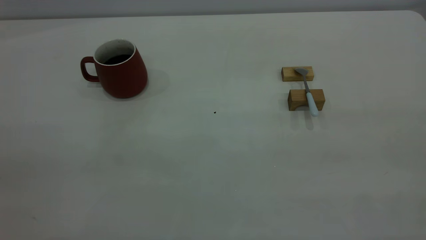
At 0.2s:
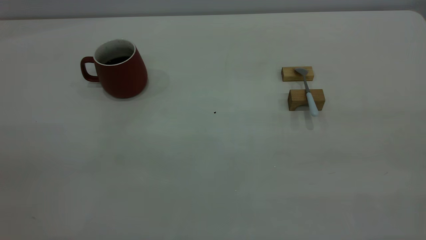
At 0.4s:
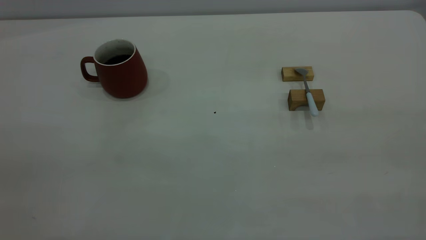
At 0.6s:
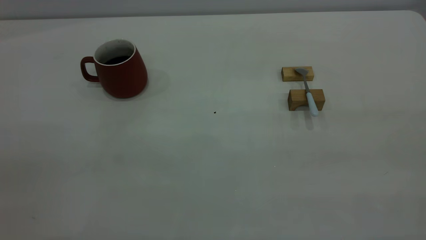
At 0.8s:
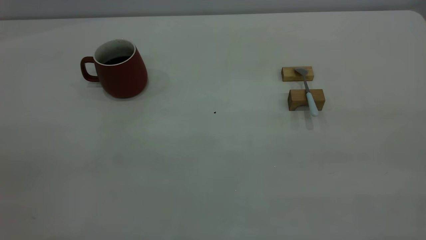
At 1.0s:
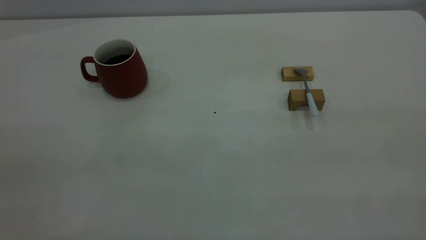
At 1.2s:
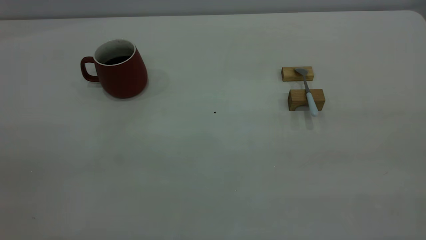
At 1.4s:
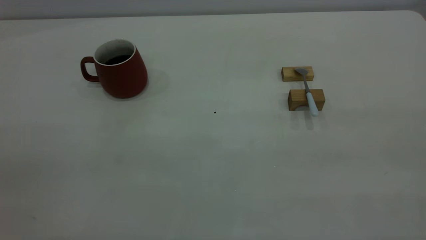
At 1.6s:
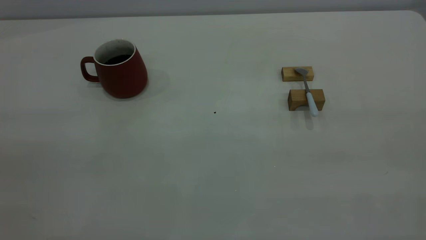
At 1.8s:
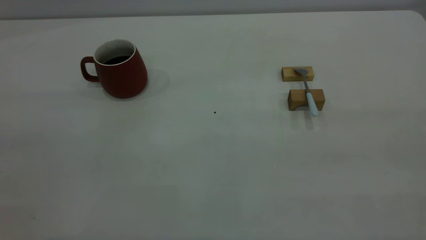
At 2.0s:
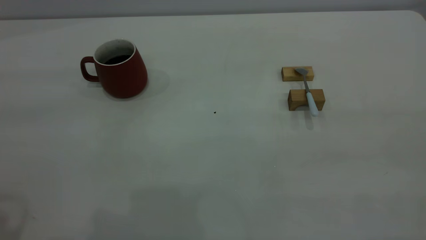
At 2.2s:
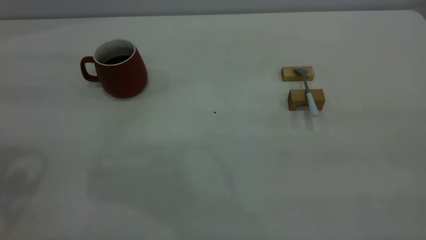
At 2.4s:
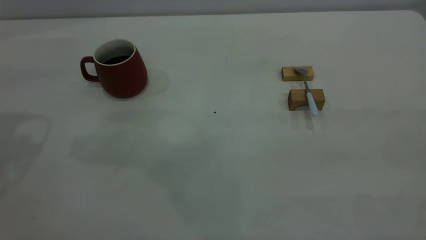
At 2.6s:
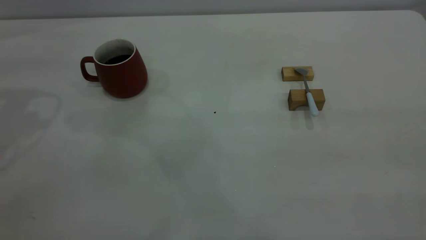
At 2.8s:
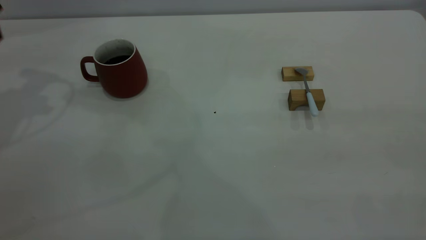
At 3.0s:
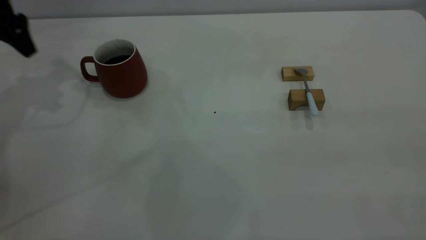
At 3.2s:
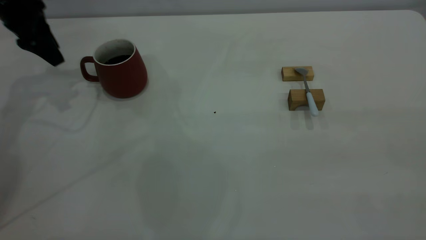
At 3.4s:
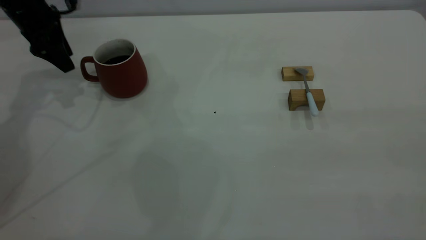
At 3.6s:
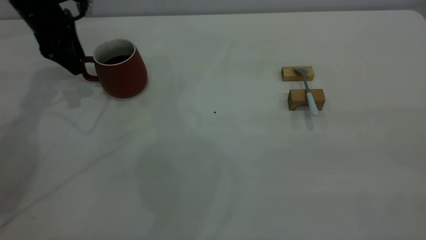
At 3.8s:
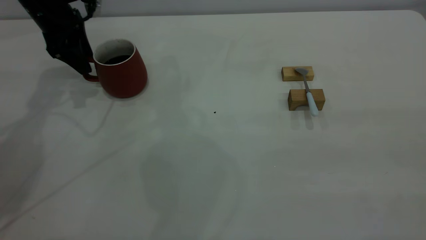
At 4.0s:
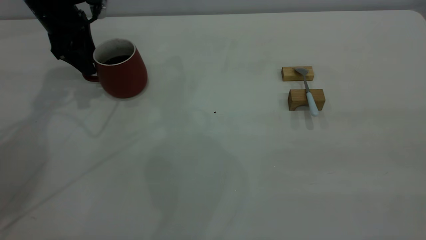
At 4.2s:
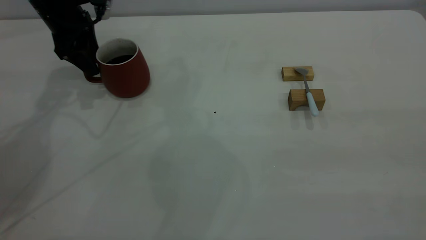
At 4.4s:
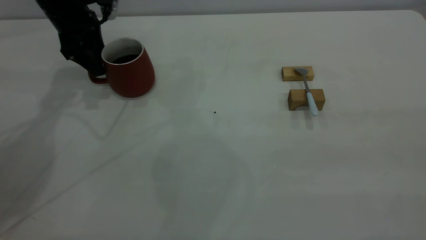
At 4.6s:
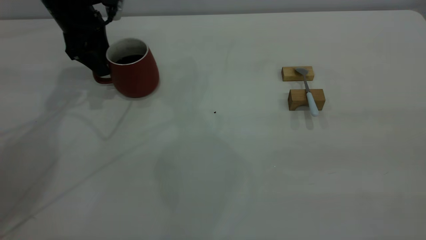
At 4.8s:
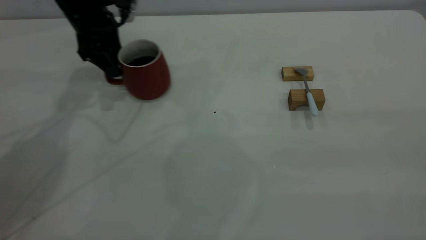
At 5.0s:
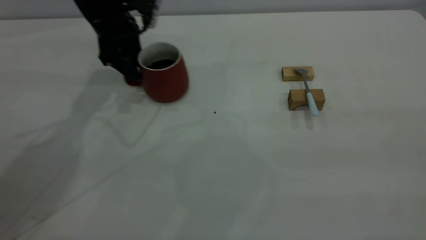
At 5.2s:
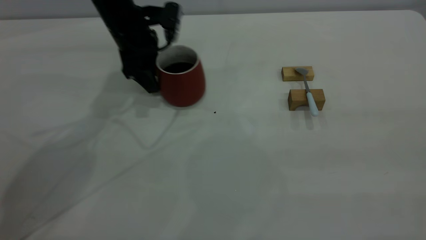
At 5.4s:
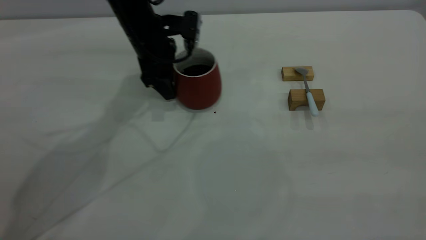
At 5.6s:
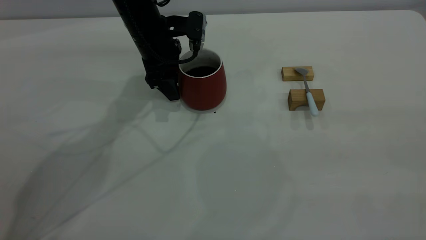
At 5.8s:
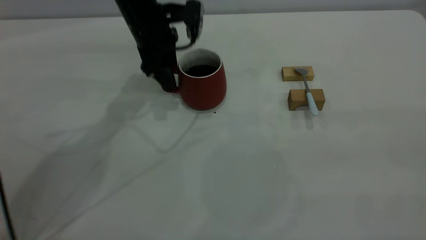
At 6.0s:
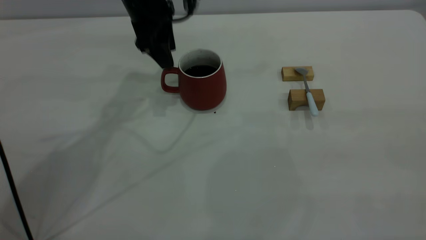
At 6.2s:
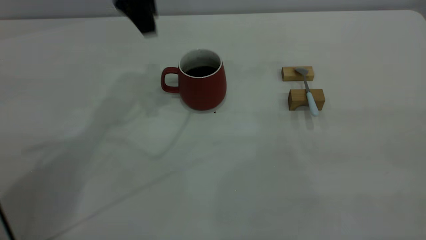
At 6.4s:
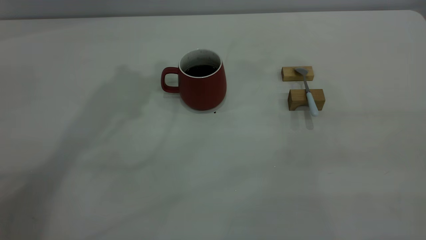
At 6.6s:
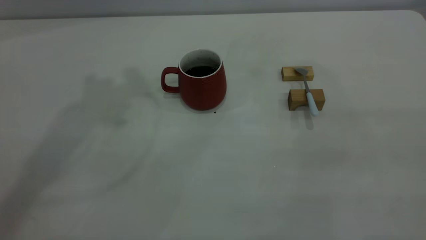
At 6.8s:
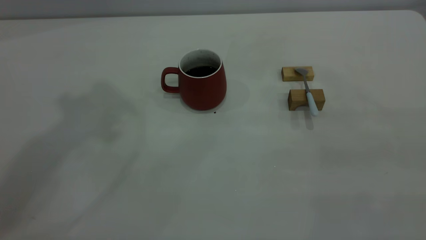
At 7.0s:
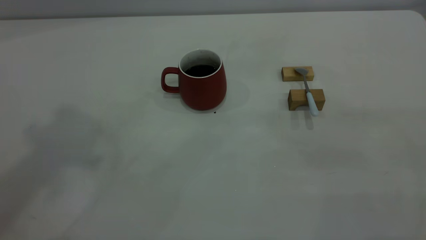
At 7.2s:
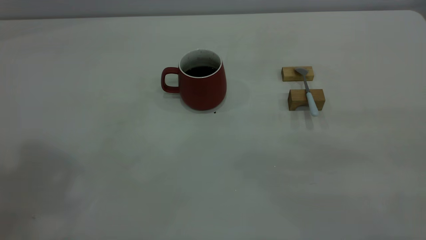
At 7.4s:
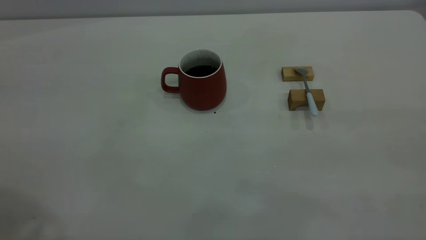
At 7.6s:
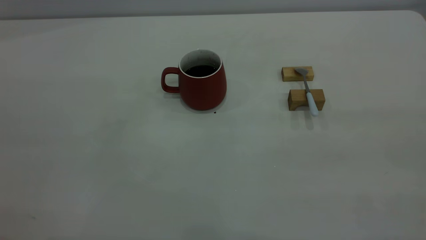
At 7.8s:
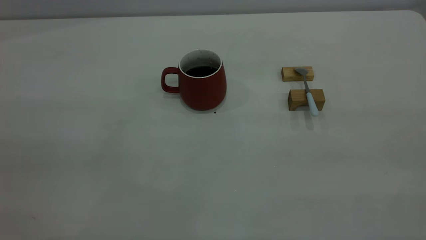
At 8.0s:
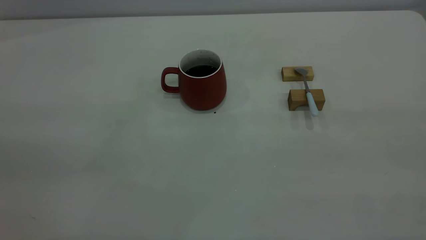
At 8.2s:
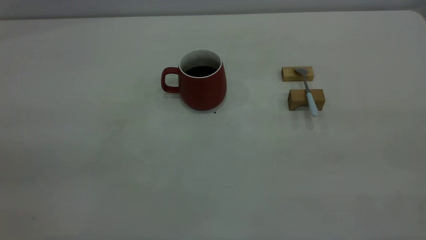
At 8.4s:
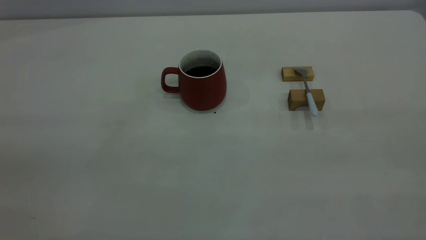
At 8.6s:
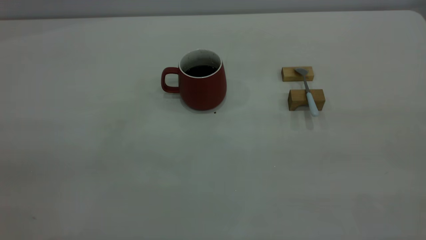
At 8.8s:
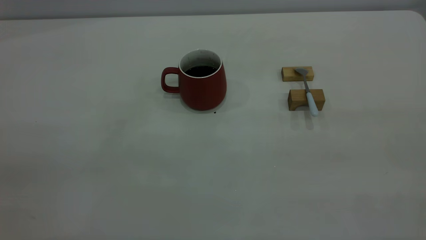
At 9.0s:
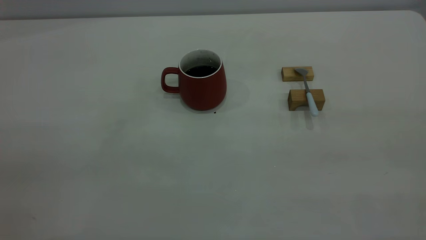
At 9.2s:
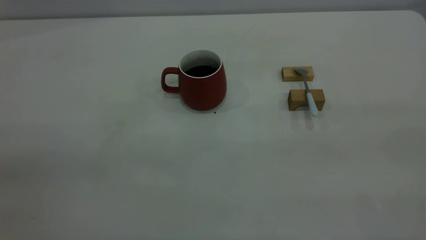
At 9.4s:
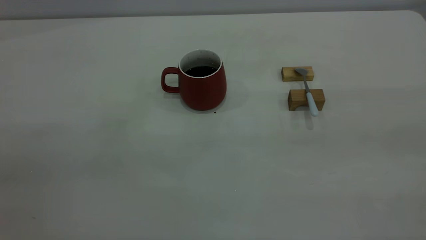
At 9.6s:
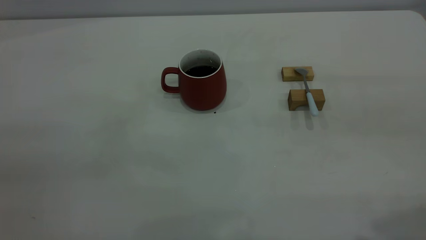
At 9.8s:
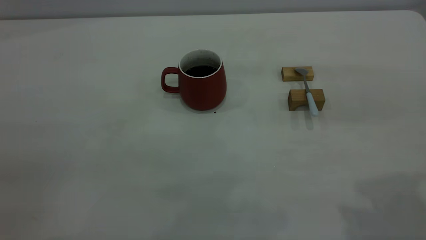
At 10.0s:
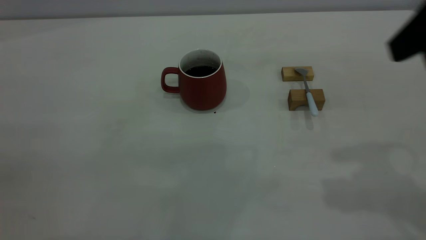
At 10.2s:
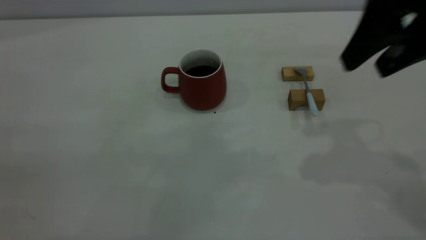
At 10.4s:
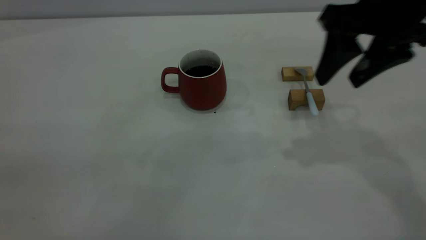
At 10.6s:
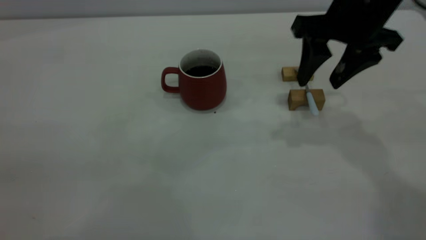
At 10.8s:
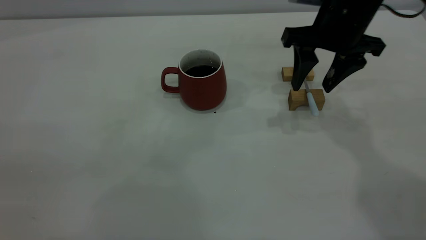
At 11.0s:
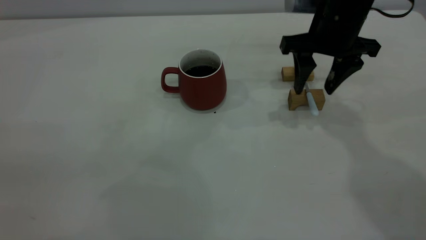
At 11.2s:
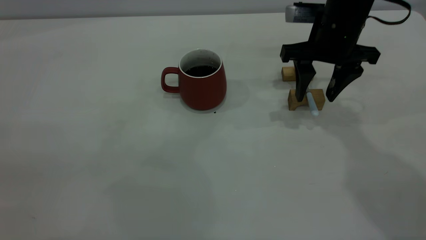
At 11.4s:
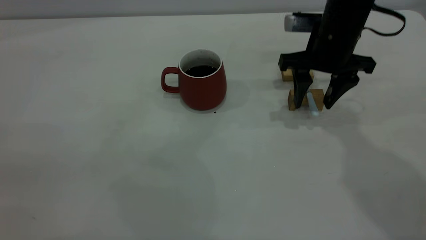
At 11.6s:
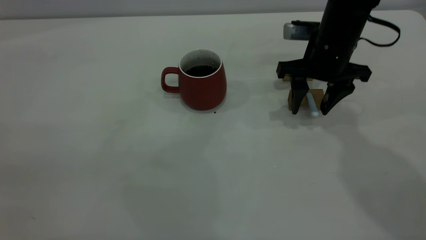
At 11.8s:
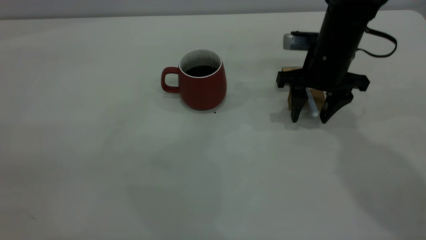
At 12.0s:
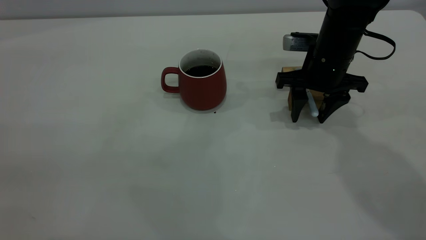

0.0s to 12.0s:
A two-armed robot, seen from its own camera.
Step, 0.0s to 5.8s: Move the cup with coffee to the center of view.
1.6s to 3.0s: The left gripper shifts approximately 50 cm forward and downward.
3.0s to 4.4s: The left gripper travels to the right and downward by roughly 10 cm.
4.4s to 6.0s: The left gripper shifts about 15 cm to the right.
6.0s to 7.6s: The left gripper goes approximately 50 cm backward, upward and to the left.
9.0s to 10.4s: The right gripper shifts some 35 cm forward and downward, and opens its fingers.
10.4s to 12.0s: The right gripper shifts about 15 cm downward and forward.

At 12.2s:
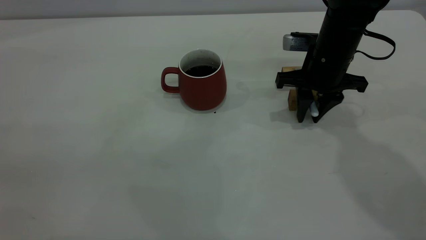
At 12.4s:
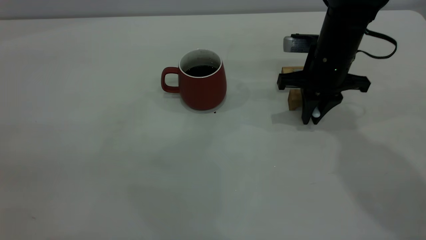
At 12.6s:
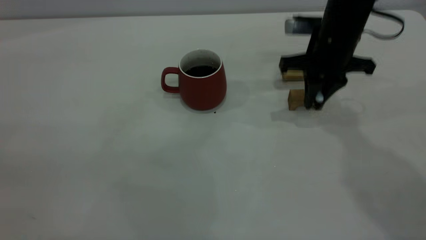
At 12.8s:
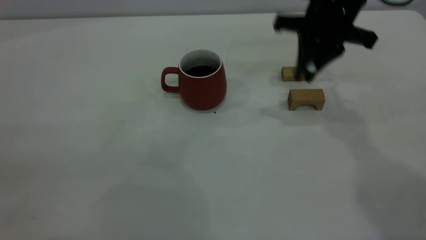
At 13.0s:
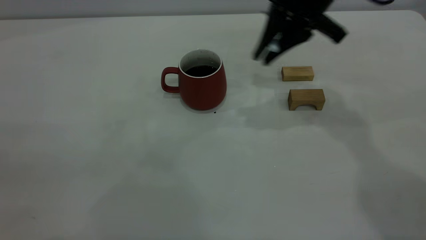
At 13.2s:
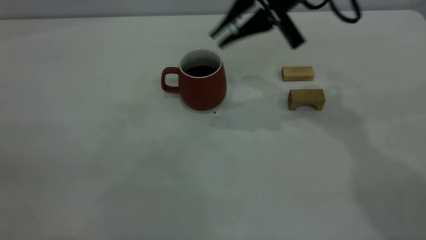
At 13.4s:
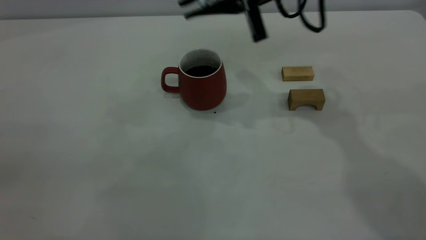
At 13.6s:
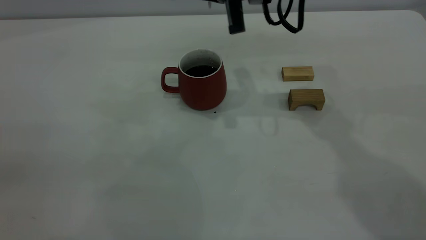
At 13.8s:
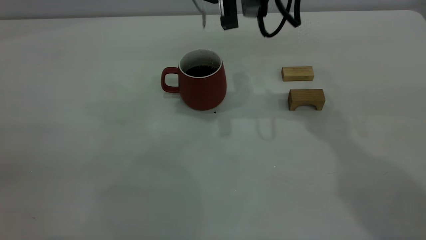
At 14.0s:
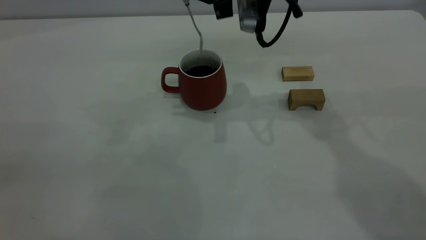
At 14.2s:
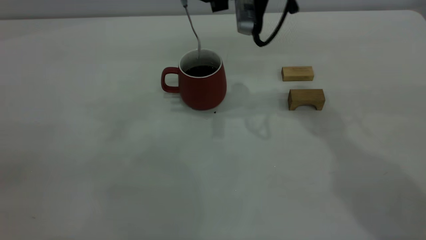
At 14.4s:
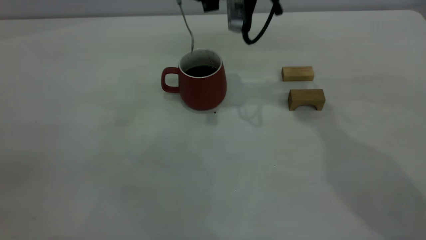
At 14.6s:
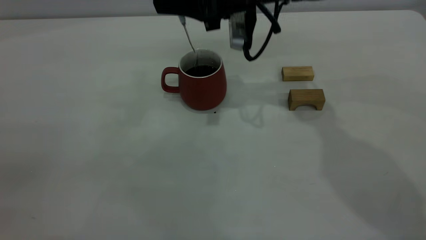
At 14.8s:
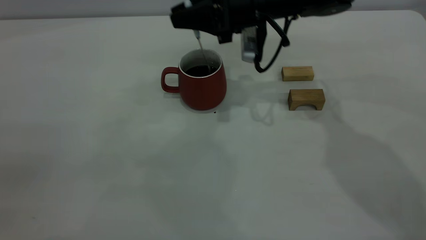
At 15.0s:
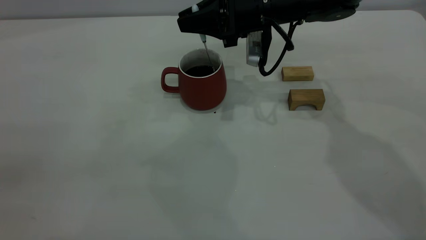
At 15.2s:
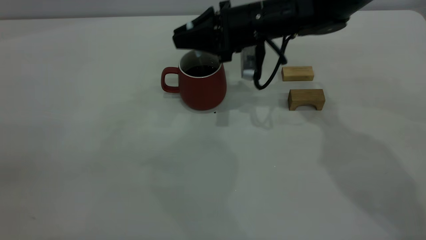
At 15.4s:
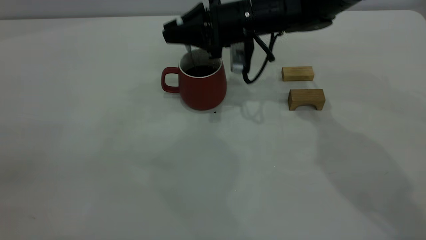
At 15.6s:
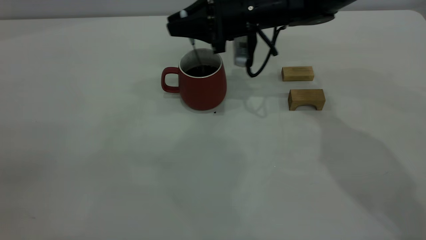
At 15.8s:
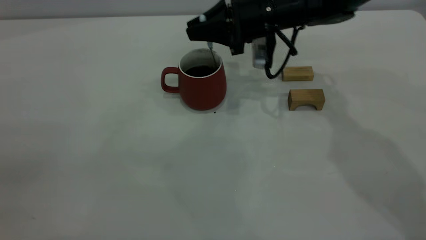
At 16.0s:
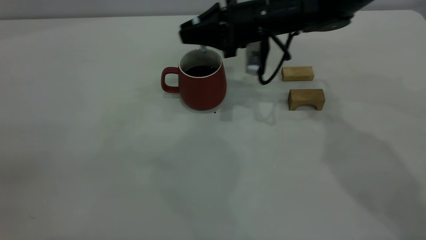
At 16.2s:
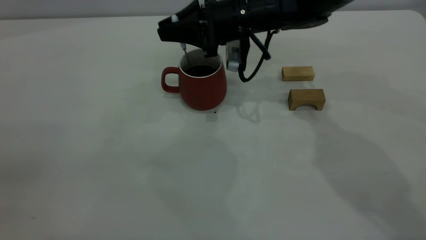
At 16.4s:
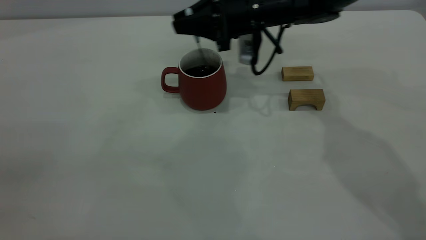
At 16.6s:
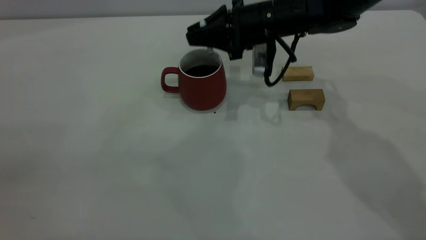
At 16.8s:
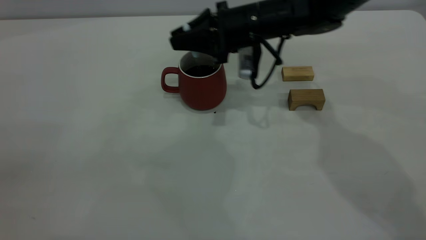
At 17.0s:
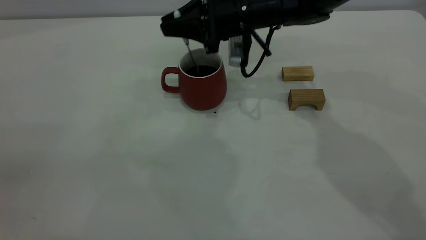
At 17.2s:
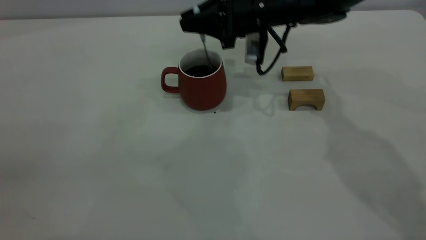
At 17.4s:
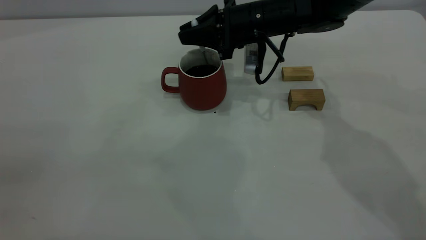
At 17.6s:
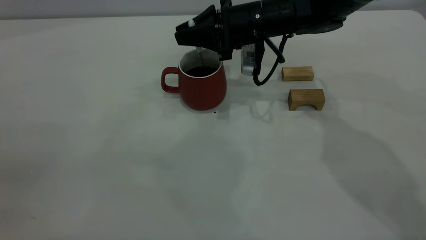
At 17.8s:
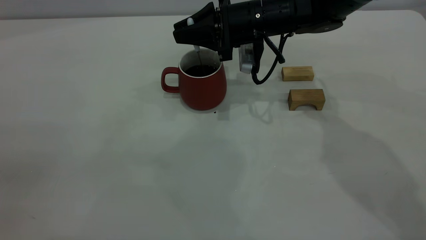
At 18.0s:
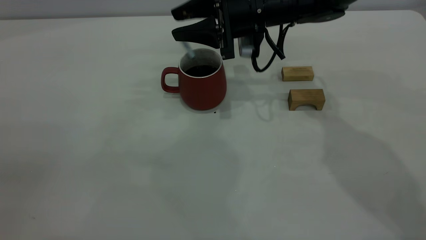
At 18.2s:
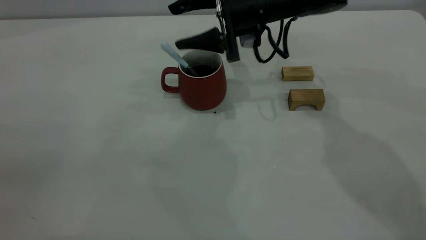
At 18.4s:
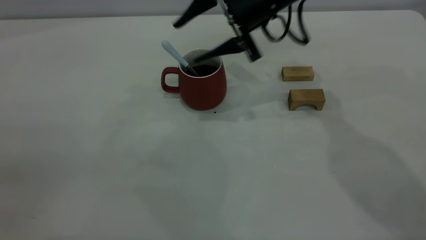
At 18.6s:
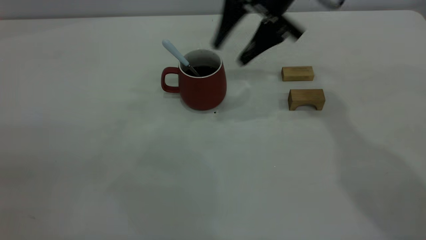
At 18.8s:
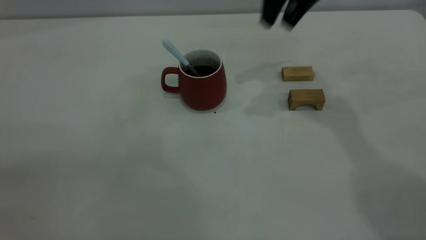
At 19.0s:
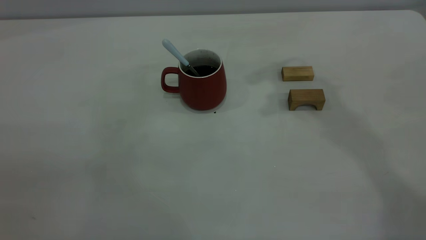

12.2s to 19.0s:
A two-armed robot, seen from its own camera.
Step, 12.8s to 18.0s: Stir the coffee in the cup.
12.2s to 13.6s: The right gripper travels upward and to the left by some 15 cm.
13.6s to 15.0s: The right gripper goes some 10 cm downward.
15.0s to 17.6s: The grippers stay close to where they were, moving slightly.
17.6s to 19.0s: The right gripper moves upward, roughly 30 cm, and opens.
